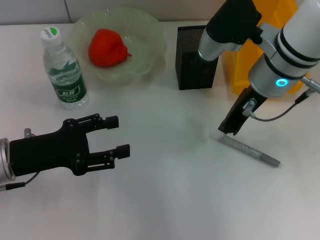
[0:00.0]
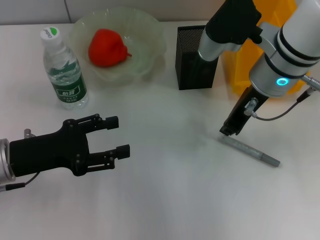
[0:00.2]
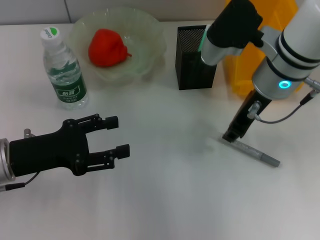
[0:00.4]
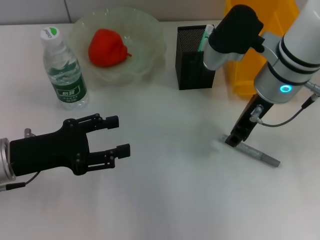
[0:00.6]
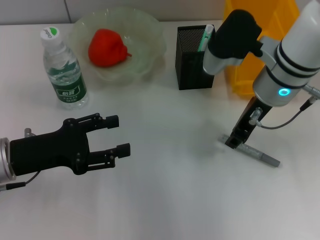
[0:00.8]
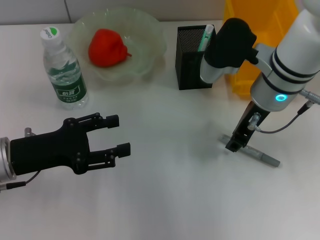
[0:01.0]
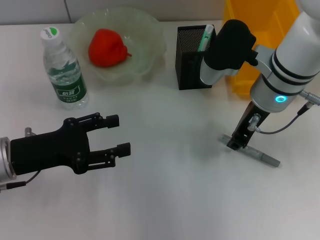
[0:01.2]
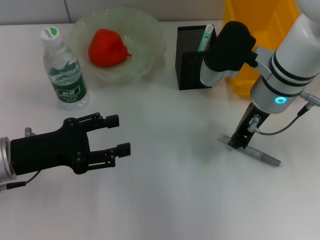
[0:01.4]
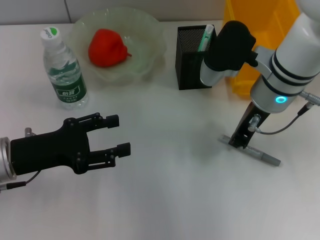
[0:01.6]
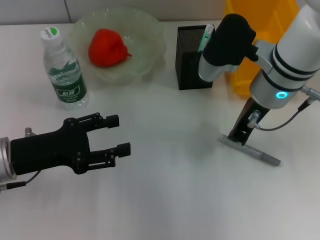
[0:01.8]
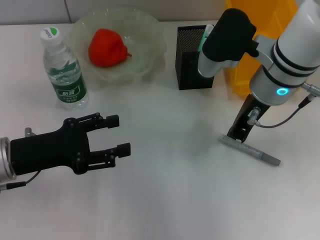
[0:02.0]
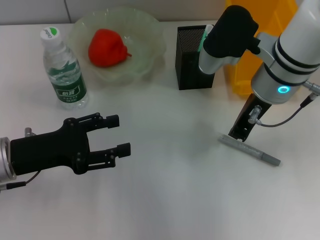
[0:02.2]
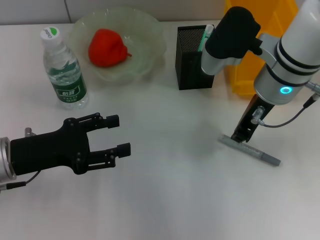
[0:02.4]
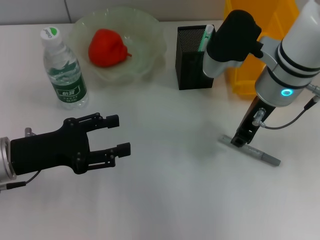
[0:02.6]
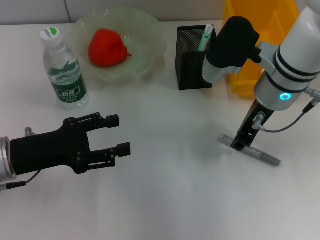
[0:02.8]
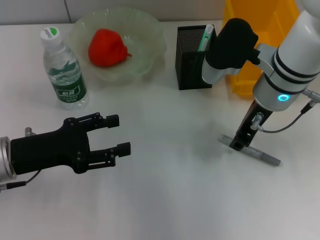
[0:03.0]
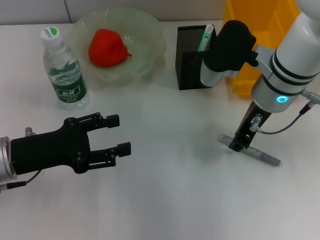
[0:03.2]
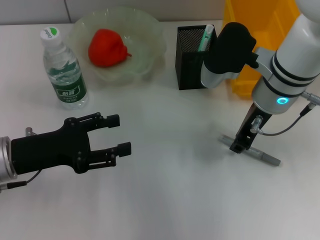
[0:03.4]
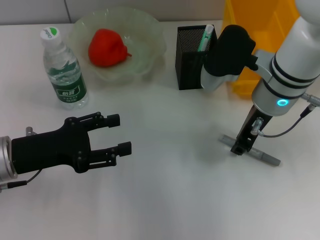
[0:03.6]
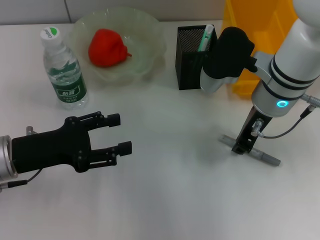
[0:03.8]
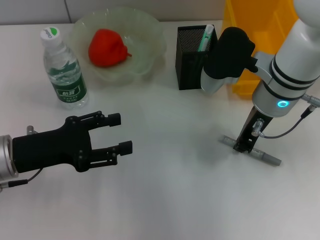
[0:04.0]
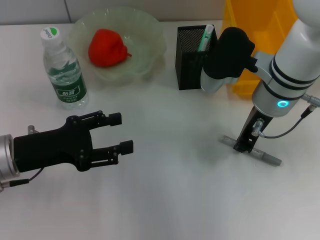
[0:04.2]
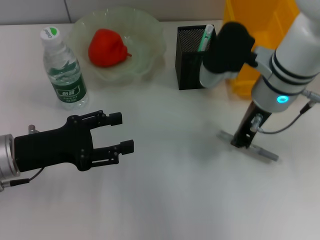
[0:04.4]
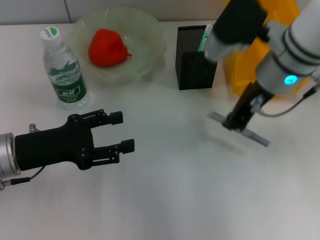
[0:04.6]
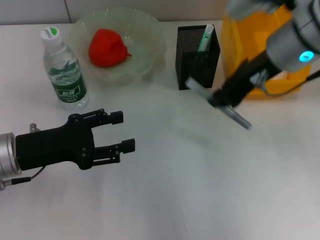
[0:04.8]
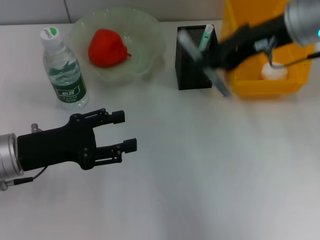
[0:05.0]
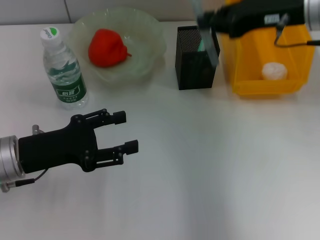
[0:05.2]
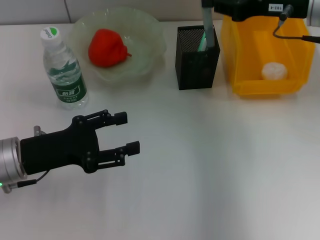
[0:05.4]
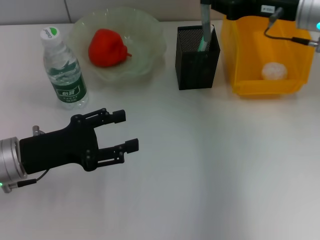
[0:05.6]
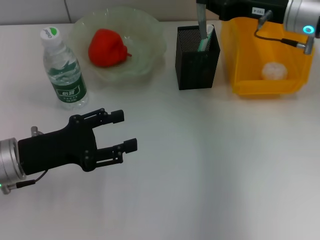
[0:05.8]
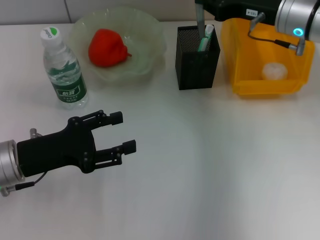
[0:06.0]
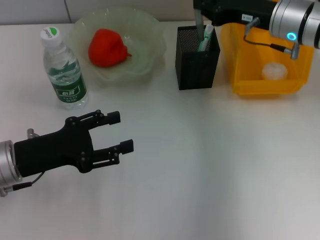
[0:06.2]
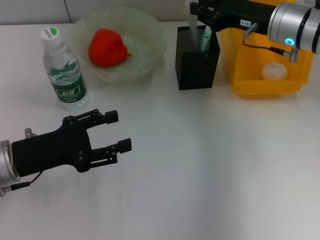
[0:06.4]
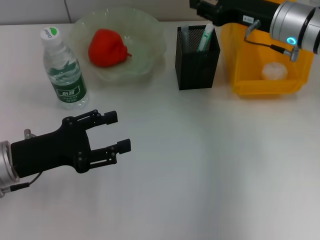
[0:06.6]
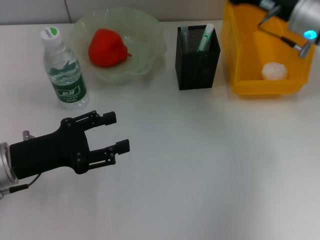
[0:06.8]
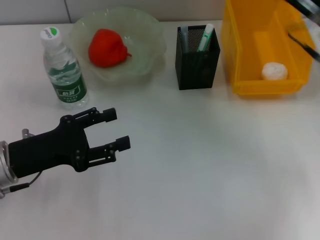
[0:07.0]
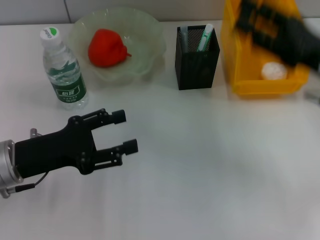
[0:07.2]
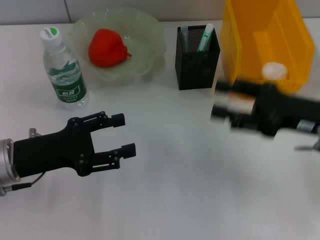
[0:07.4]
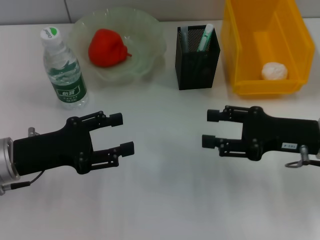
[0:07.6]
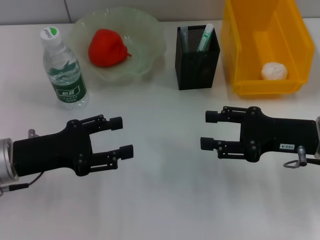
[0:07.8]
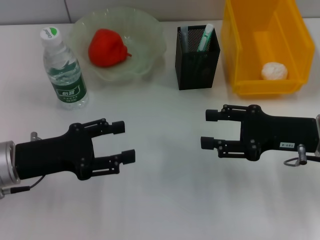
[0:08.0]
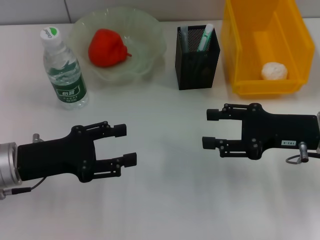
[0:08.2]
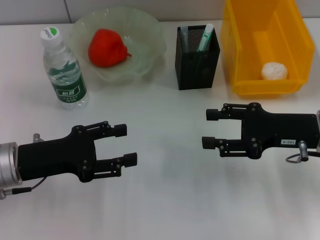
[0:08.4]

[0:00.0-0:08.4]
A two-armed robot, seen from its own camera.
Step, 0:00.0 to 0:04.0: Grab the gray glue with the right hand.
Step, 0:04.2 to 0:07.0: Place the gray glue into the pen holder with the right hand.
0:00.0 to 0:02.8: The grippers make only small movements.
0:02.8 to 0:04.2: Both grippers stay put.
0:04.2 to 0:05.6: The right gripper heads to the right, covering approximately 10 cm.
0:05.6 to 0:07.0: The right gripper goes roughly 5 cm backward, and opens up.
0:07.0 to 0:08.4: The right gripper heads downward and backward, covering about 10 cm.
